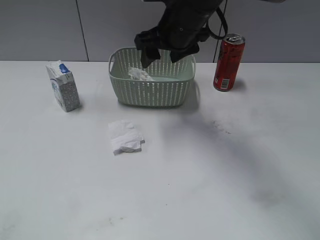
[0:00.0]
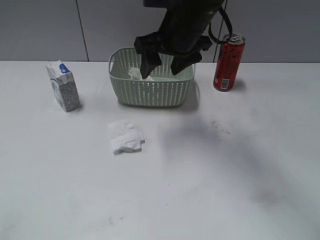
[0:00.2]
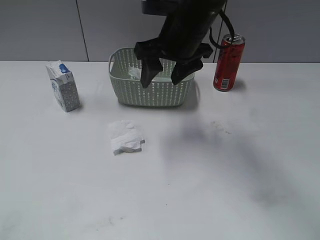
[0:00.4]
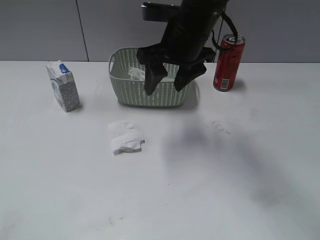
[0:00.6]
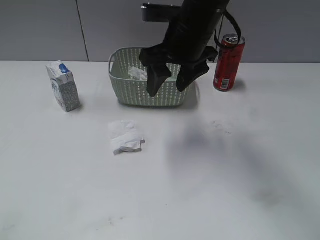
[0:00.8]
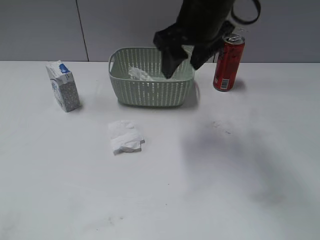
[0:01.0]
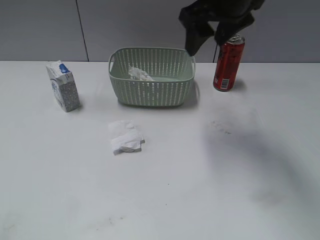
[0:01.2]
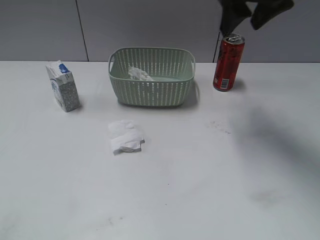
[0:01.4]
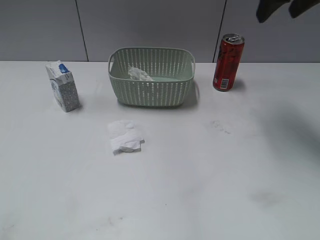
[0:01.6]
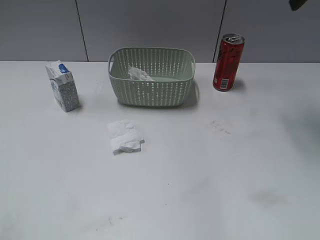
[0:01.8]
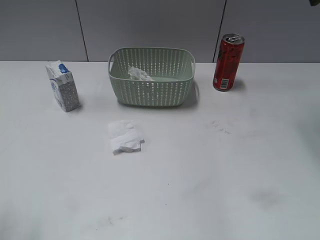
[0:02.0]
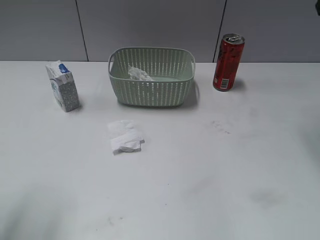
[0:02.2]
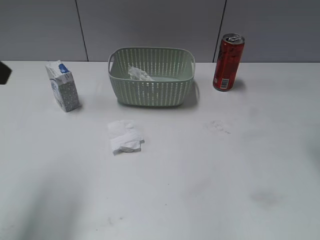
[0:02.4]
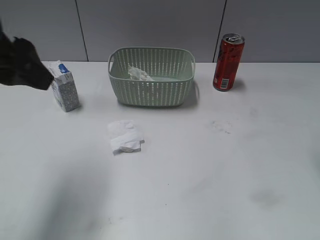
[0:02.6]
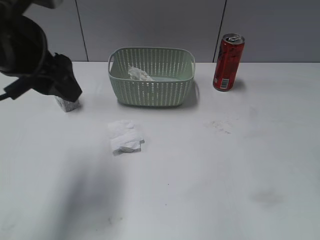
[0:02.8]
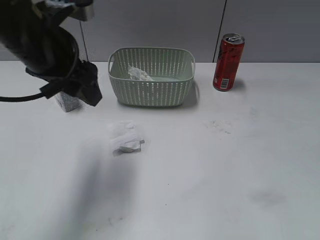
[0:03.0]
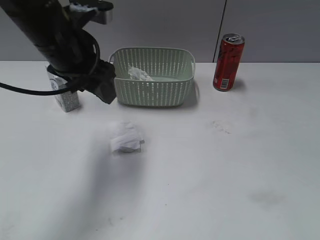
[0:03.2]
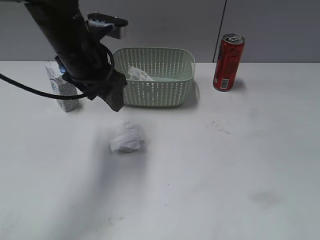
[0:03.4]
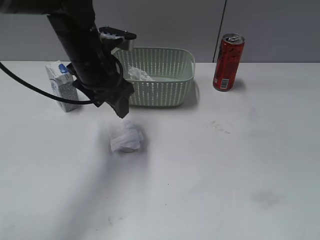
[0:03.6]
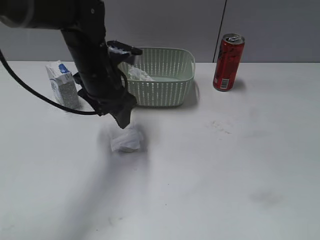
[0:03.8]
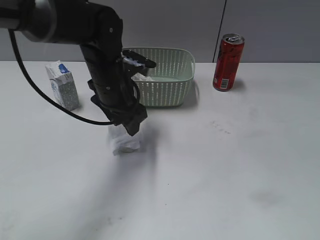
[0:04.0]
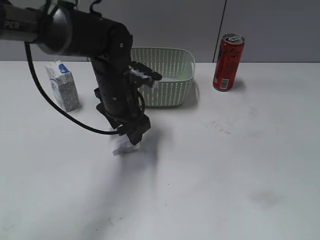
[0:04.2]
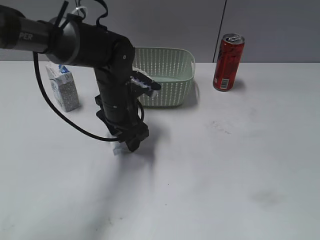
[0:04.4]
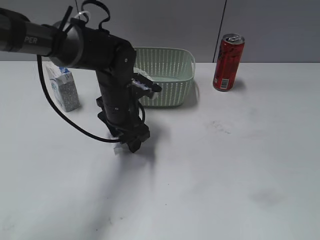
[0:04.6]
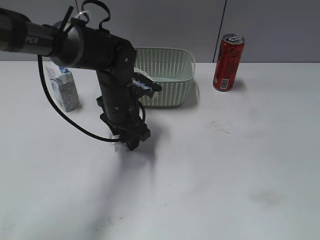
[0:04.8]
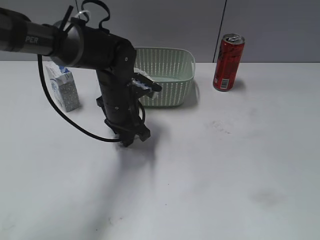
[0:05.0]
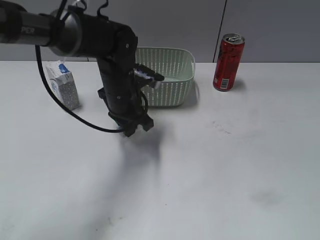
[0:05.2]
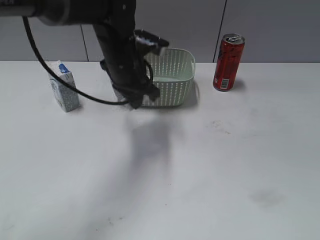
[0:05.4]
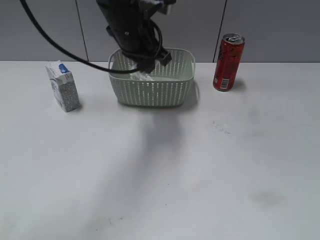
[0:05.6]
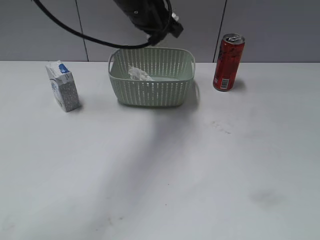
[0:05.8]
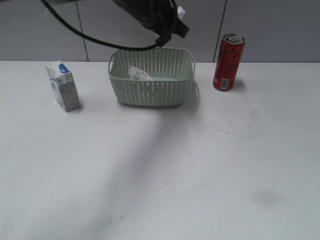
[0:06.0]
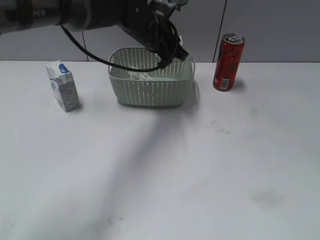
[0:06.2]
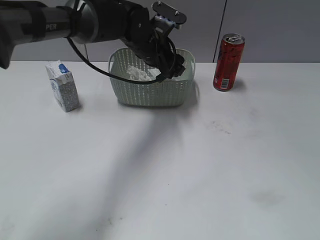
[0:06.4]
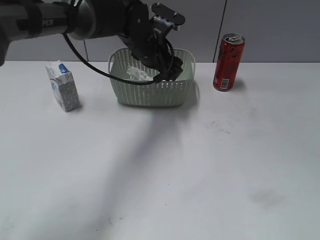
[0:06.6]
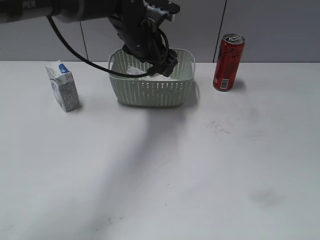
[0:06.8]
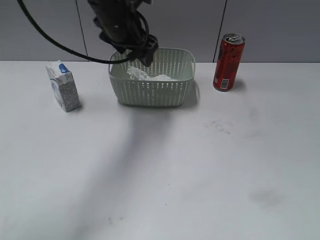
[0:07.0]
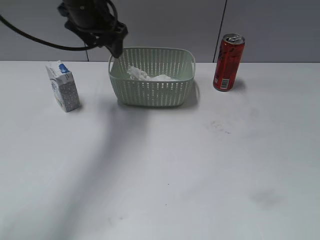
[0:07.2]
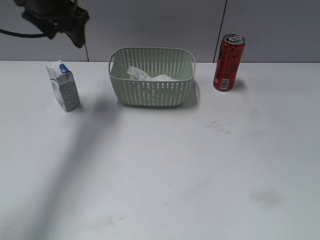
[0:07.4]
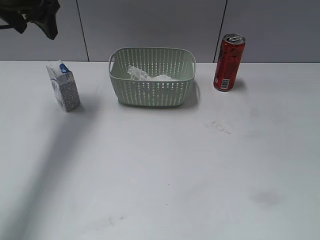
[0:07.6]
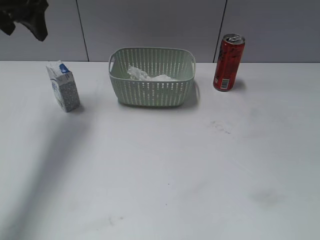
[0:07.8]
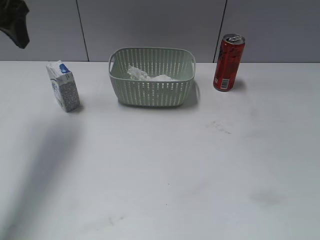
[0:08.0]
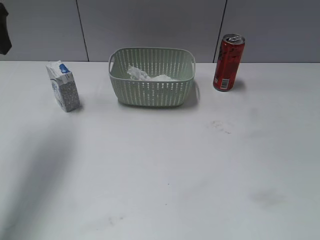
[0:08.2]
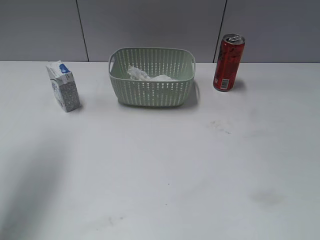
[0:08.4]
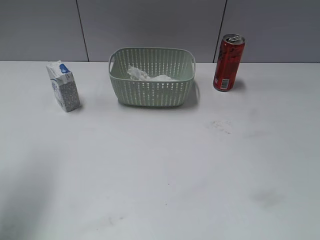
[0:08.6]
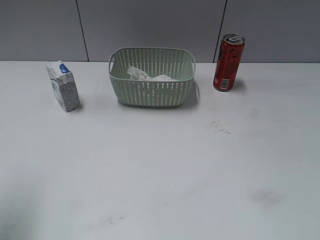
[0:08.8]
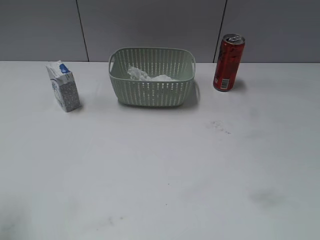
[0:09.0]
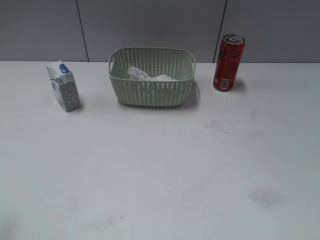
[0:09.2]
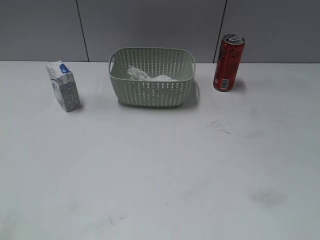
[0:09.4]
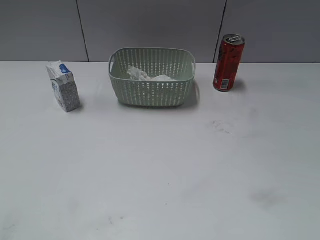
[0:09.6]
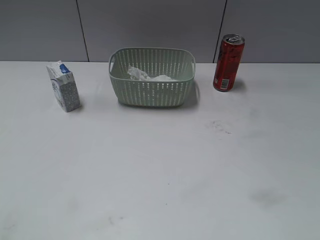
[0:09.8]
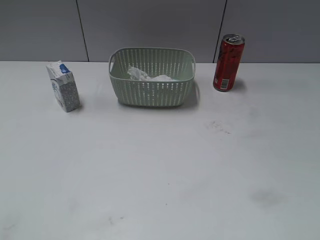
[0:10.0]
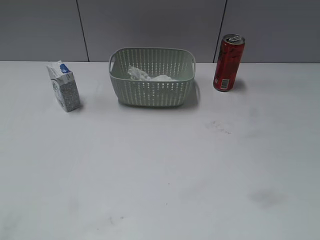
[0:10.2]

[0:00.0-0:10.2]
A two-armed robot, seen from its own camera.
Step, 0:00.0 to 0:05.2: Grasp the waste paper with left gripper.
Step, 0:05.4 to 0:06.8: Place the waste paper in the basket with left gripper.
0:00.0 to 0:01.4: The right gripper goes approximately 15 cm to the right and upward.
0:01.4 to 0:03.0: The left gripper is displaced forward and to the right by approximately 30 cm; the right gripper goes some 25 cm backward and to the right.
0:03.0 to 0:04.4: The right gripper moves backward, about 15 cm. The left gripper moves downward and to the right, some 15 cm.
0:04.4 to 0:05.8: The left gripper is displaced upward by about 15 cm, and closes.
0:05.8 to 0:07.2: The left gripper travels to the left by approximately 10 cm, and opens its fingers.
0:07.2 to 0:08.8: The left gripper moves backward and to the left, roughly 30 cm.
0:08.8 to 0:10.2: The left gripper moves backward, roughly 15 cm.

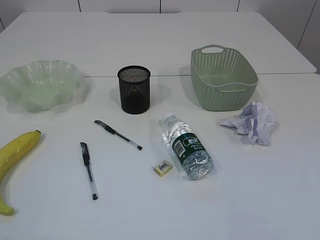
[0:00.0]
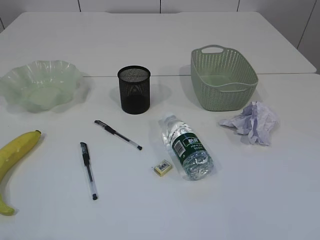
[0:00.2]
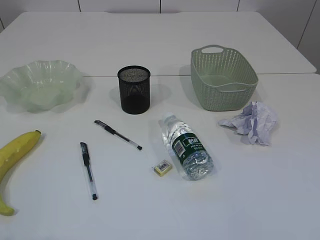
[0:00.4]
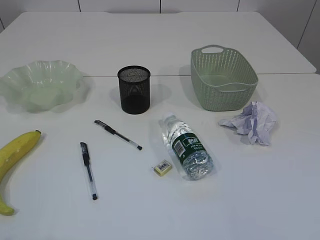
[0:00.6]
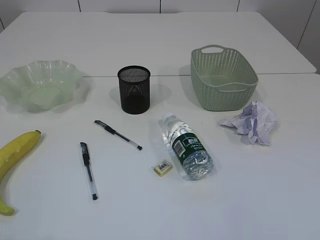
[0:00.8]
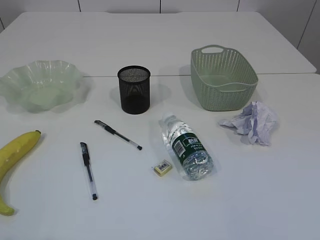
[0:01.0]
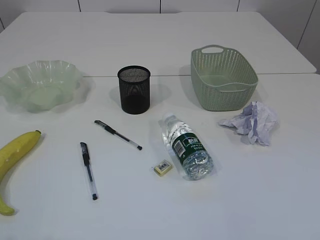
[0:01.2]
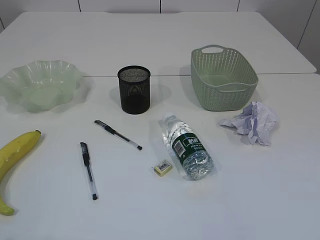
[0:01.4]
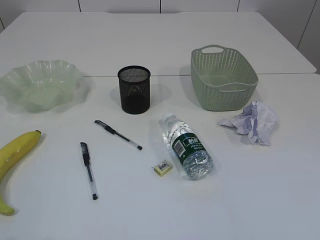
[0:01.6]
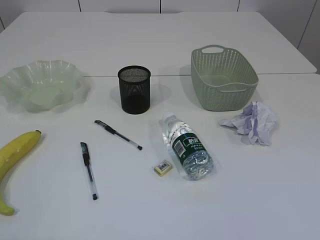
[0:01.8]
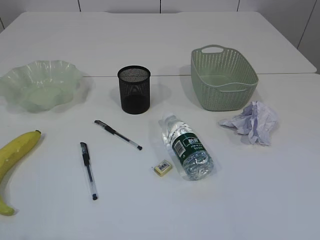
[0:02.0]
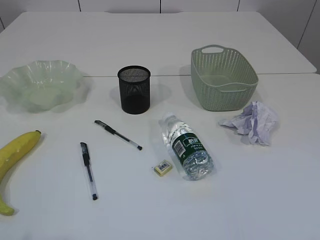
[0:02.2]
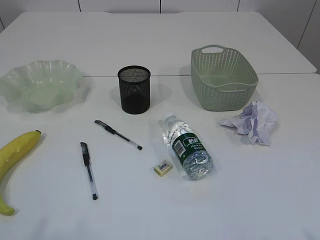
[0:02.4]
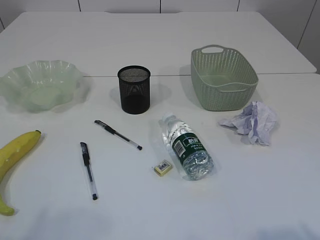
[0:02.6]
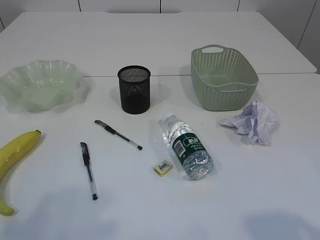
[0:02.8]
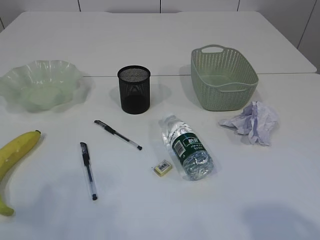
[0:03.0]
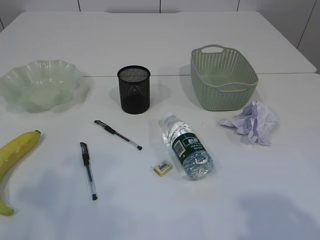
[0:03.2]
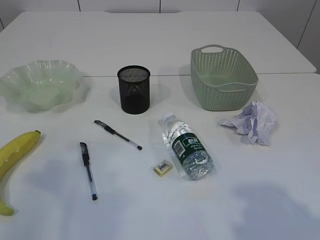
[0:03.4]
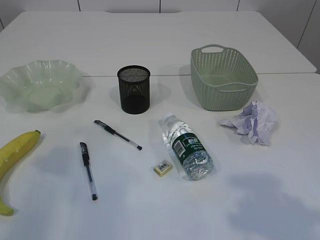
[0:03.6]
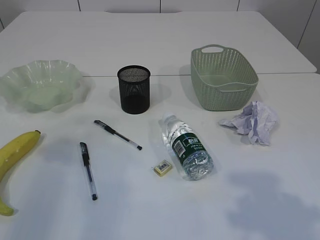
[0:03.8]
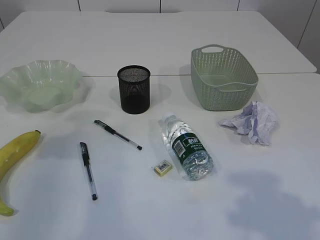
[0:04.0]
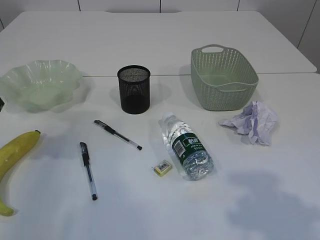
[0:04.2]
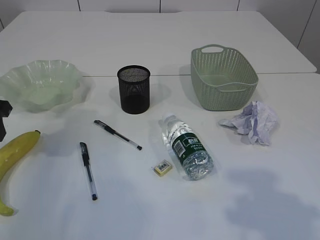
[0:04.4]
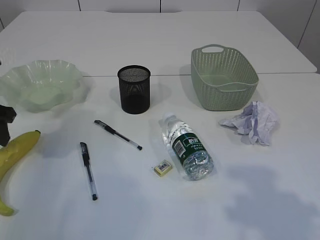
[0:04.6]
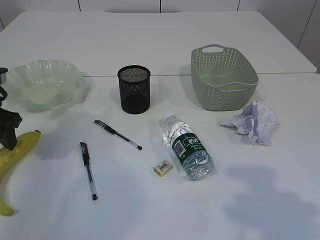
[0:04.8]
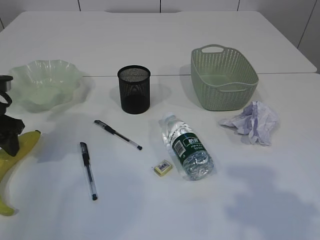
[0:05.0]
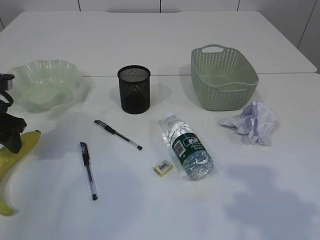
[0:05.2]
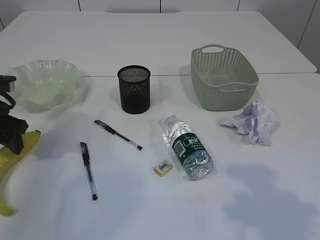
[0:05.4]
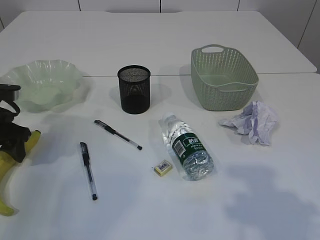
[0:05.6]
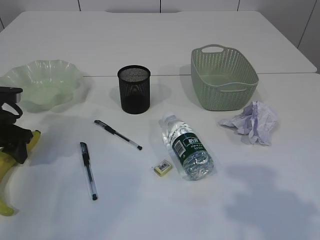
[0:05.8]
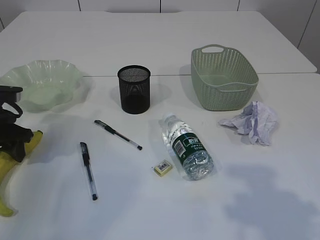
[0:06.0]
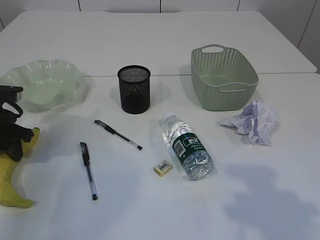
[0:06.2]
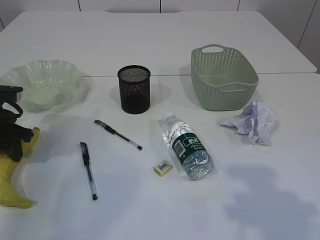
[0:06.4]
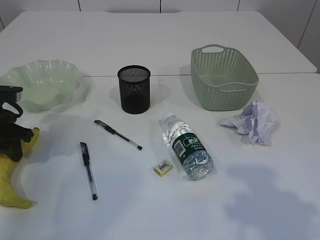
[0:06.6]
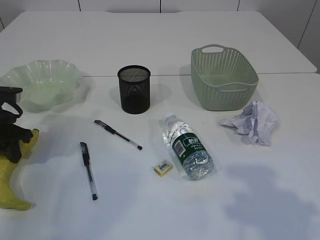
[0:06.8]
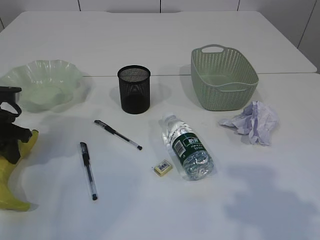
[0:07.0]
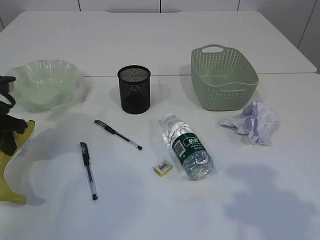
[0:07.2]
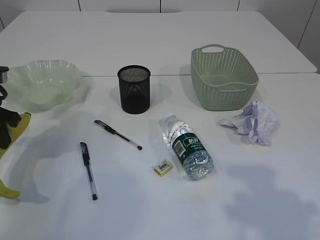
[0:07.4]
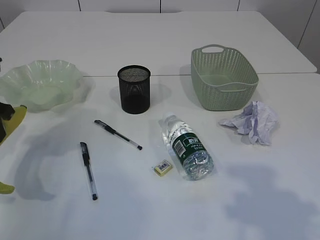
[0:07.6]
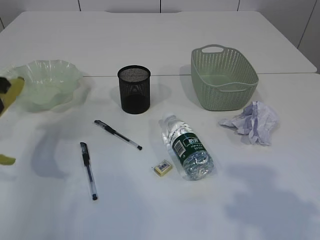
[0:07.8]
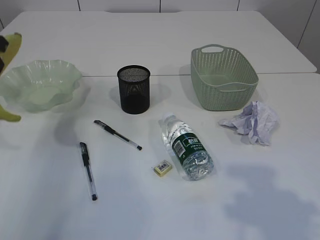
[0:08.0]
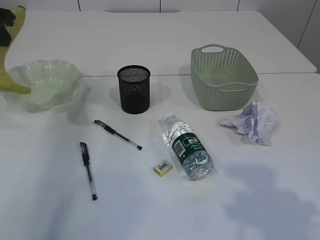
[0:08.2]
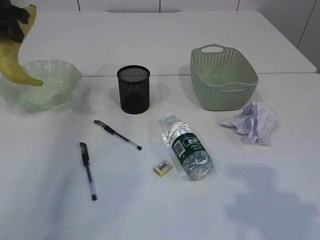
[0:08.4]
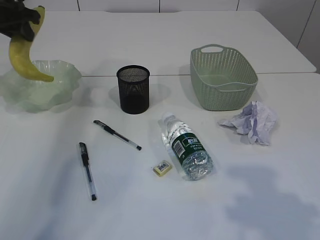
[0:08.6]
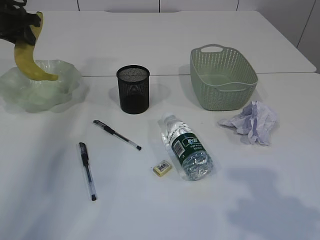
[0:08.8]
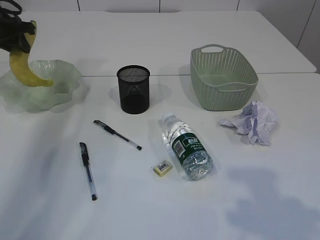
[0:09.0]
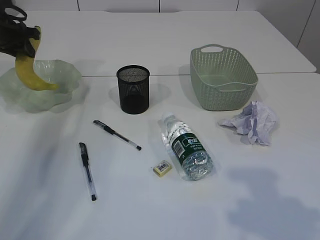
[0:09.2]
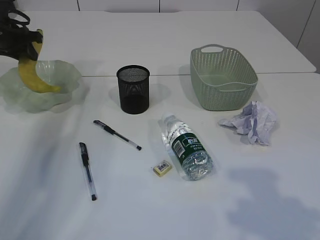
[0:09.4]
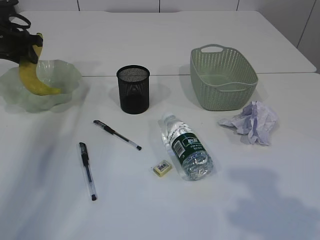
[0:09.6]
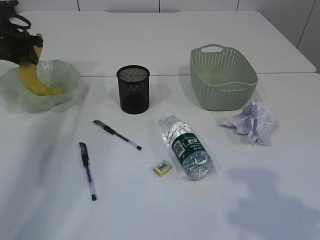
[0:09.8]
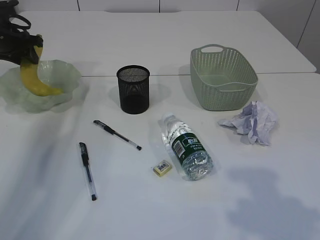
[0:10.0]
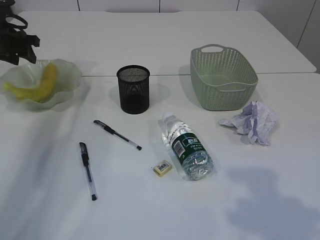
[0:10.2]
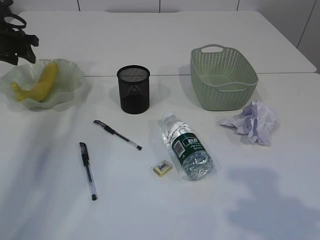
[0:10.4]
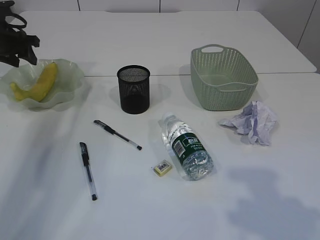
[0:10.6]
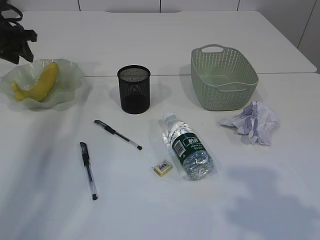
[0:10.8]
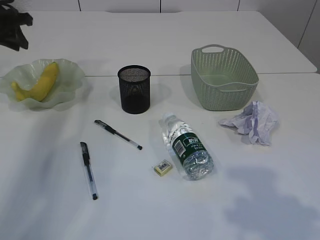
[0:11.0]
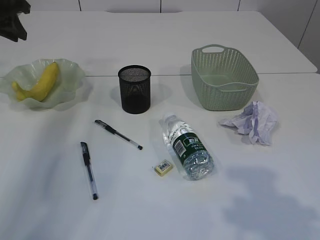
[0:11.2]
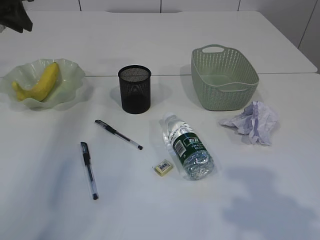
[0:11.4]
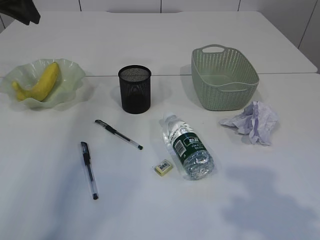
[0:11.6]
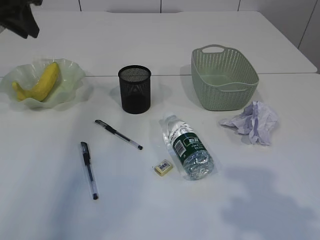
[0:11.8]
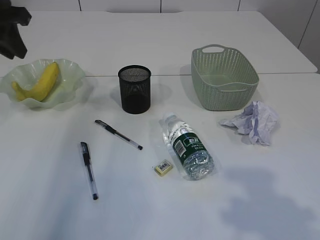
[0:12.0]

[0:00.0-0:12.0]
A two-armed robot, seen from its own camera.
Step, 0:07.8 to 0:10.8: Place the banana in the plate.
0:01.6 to 0:03.0: The left gripper is displaced forward by roughly 10 cm.
0:03.0 to 0:04.4: The left gripper is displaced forward and downward by approximately 25 cm.
0:04.4 to 0:06.0: The left gripper is displaced downward by roughly 10 cm.
0:06.0 to 0:07.6: The left gripper goes some 5 cm upward, and closes its fingers.
0:07.6 to 0:09.0: The left gripper moves forward, about 20 cm.
0:09.0 to 0:10.4: The grippers stay close to where they were, moving slightly.
0:10.4 to 0:12.0: The left gripper is displaced backward, upward and to the right by approximately 20 cm, and closes up.
